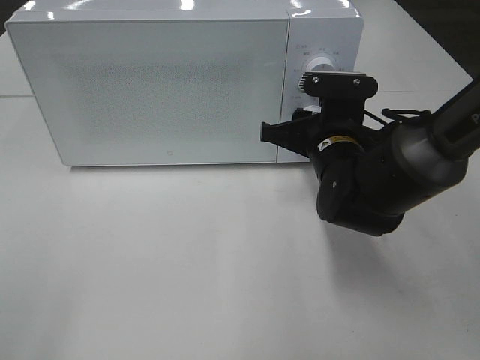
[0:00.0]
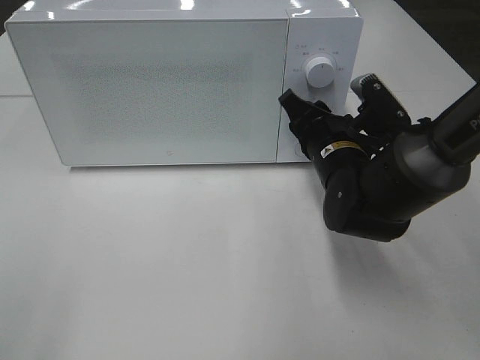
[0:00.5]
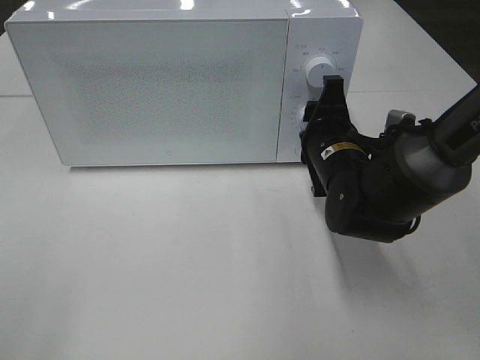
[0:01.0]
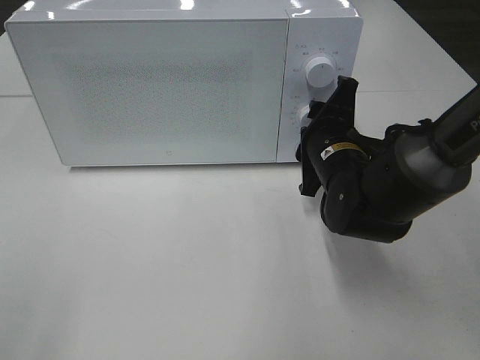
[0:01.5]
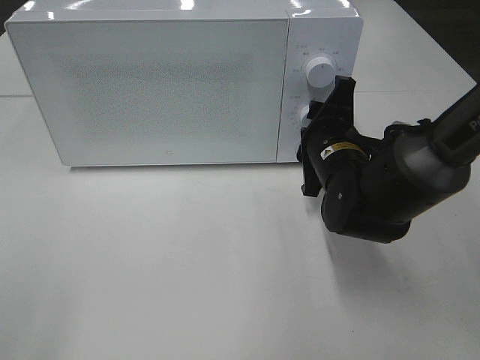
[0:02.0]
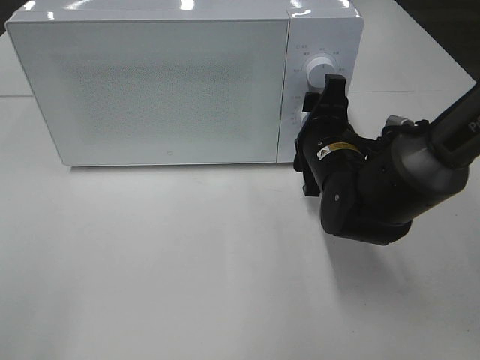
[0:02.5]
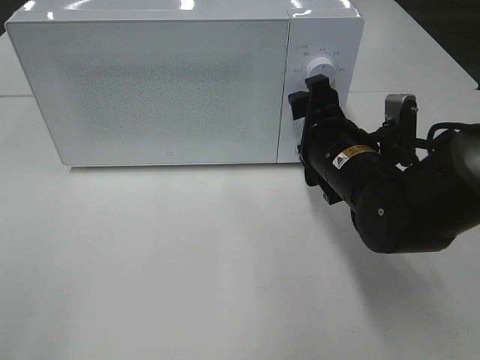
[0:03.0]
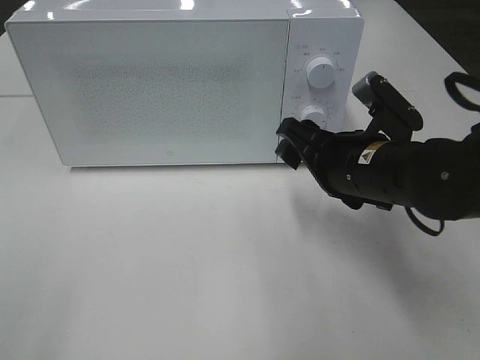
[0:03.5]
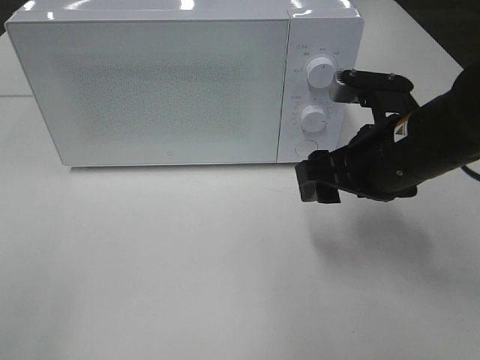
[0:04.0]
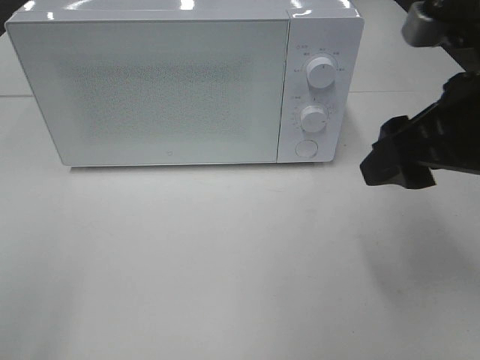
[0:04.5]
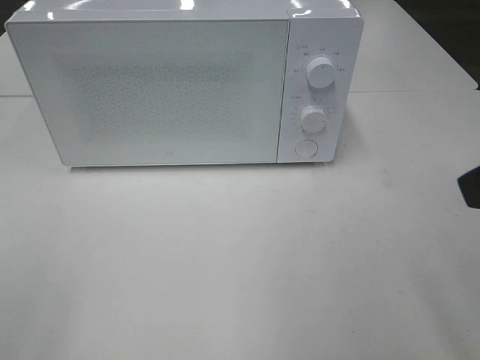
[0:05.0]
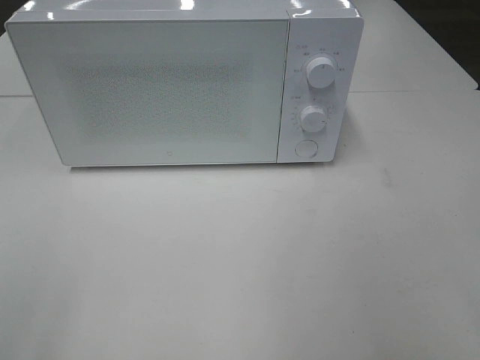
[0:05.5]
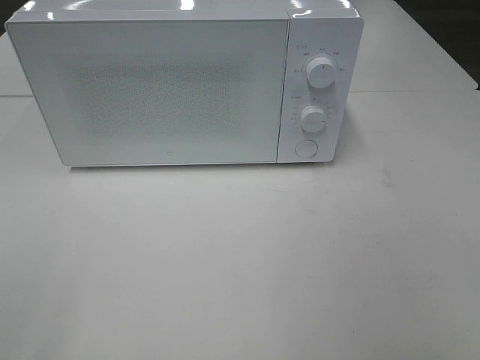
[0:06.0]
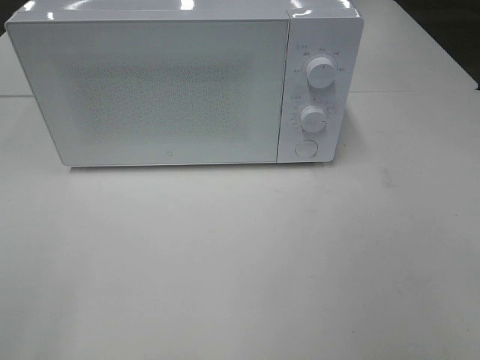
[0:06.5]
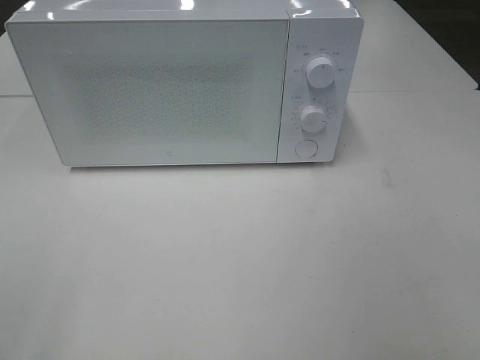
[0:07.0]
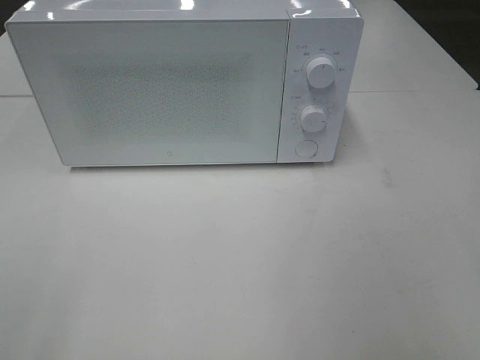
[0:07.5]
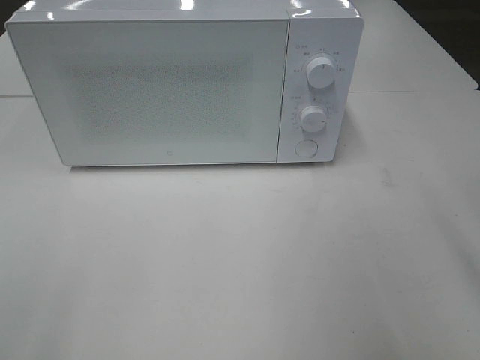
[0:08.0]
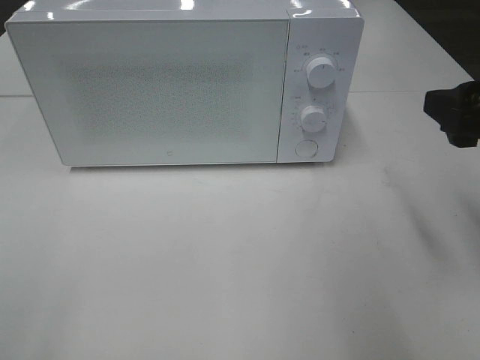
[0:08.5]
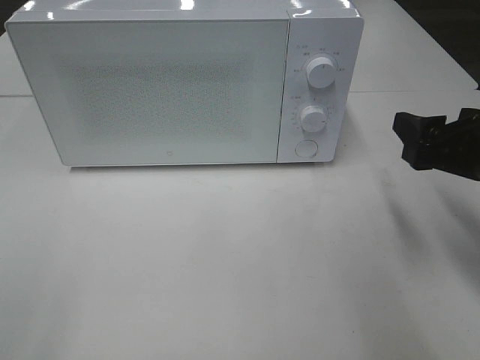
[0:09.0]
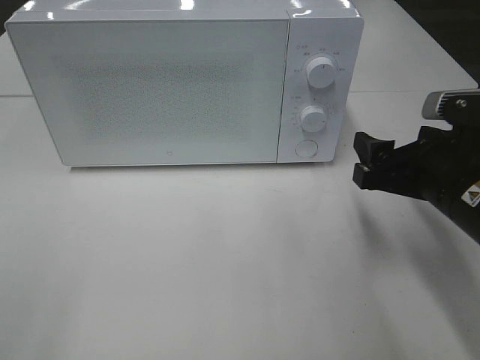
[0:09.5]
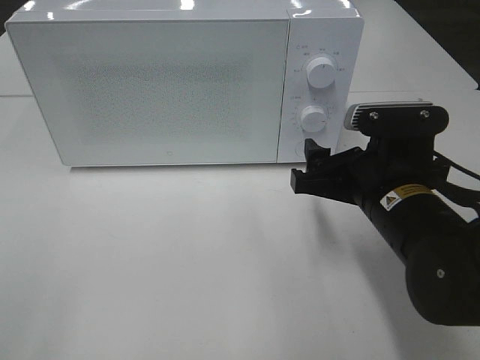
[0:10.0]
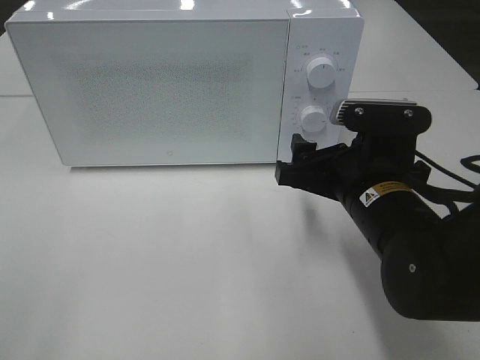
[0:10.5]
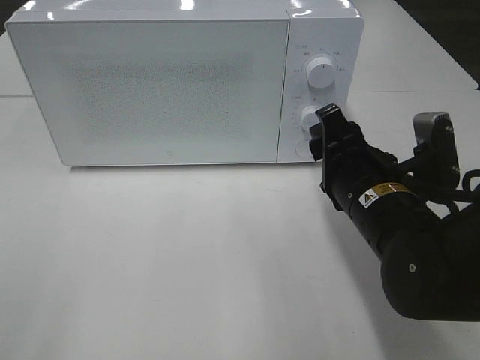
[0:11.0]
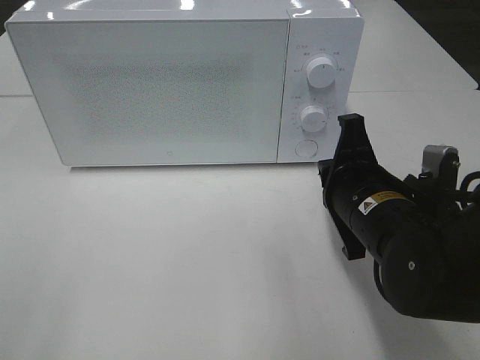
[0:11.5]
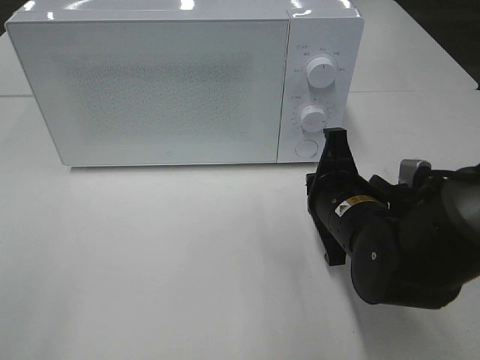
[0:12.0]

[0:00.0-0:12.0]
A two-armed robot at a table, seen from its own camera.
Task of the whole recording: Heat the burger.
Step, 0:00.0 to 0:02.0: Right hand: twist timer button.
0:02.0 to 0:04.0: The right gripper heads upward and backward, covering approximately 10 cm.
0:04.0 to 0:06.0: The right gripper goes about 30 cm backward, to the right and upward.
0:08.0 to 0:10.0: The right gripper travels downward, to the left and forward by about 20 cm.
0:10.0 to 0:12.0: The right gripper ends up roughly 5 cm from where it was, and closes its fingers.

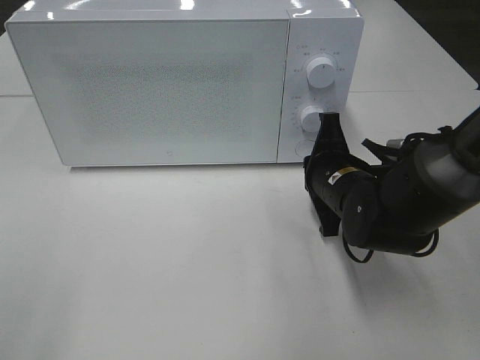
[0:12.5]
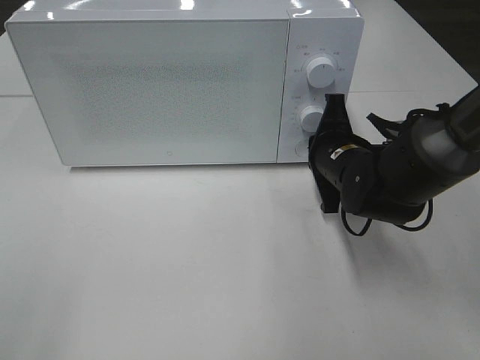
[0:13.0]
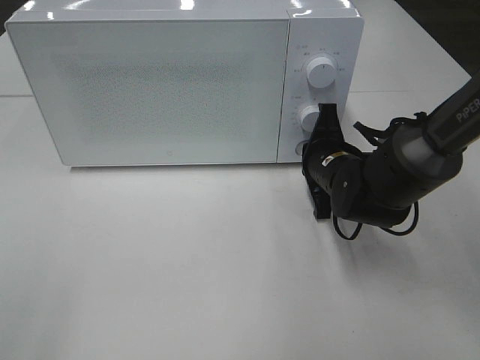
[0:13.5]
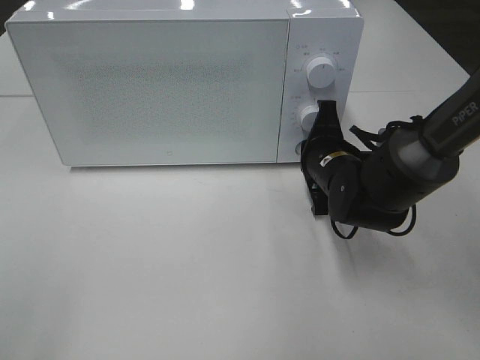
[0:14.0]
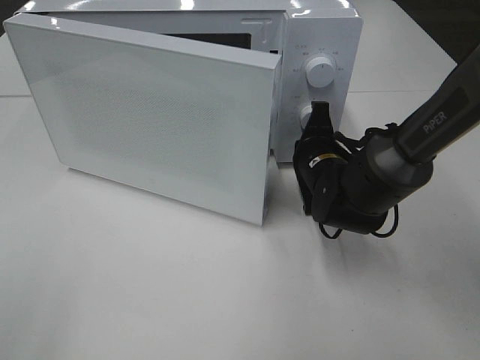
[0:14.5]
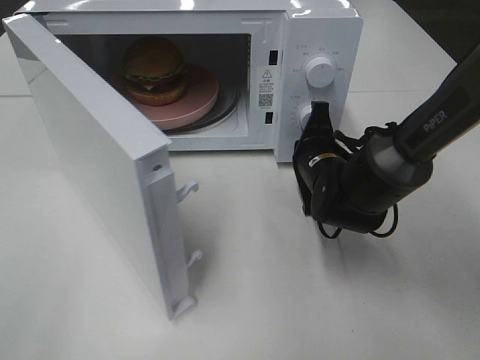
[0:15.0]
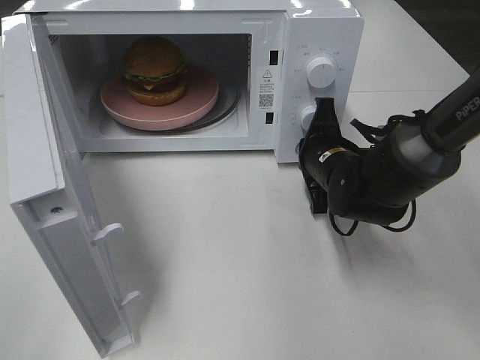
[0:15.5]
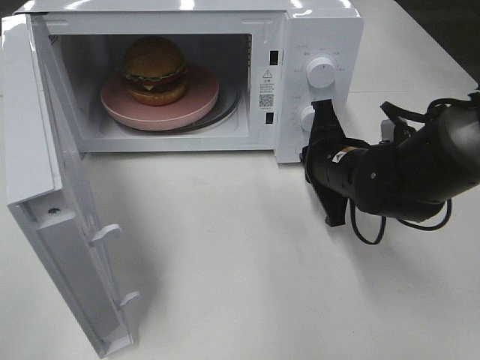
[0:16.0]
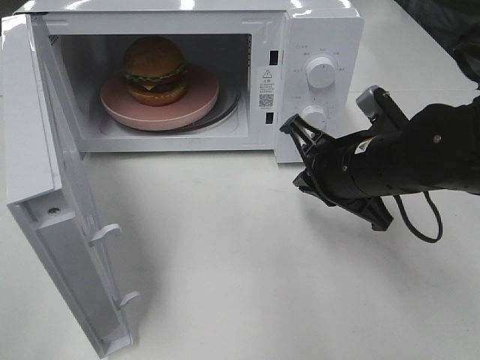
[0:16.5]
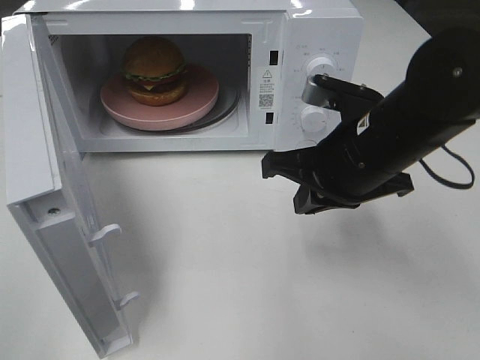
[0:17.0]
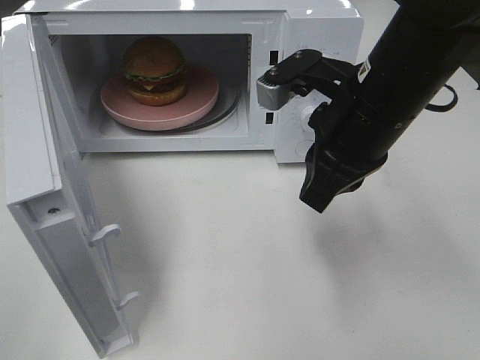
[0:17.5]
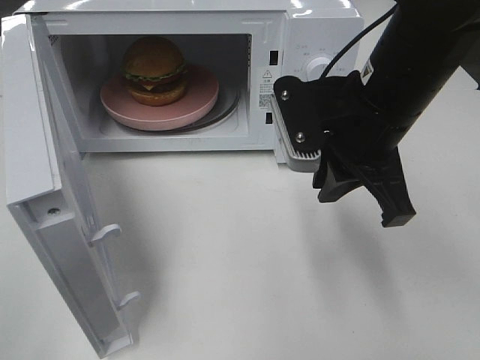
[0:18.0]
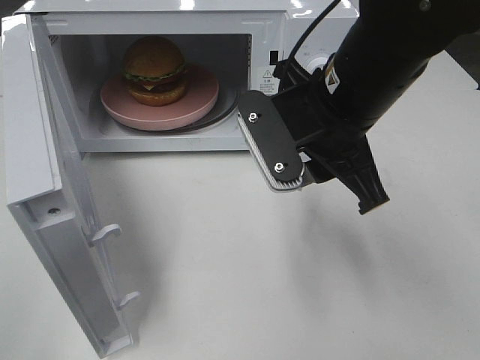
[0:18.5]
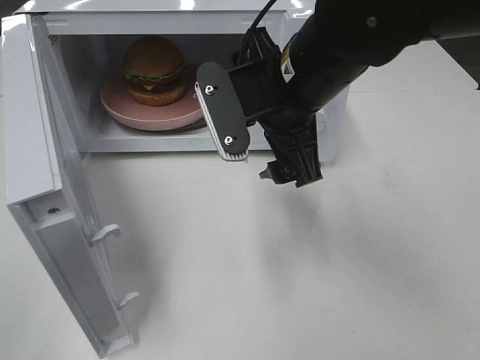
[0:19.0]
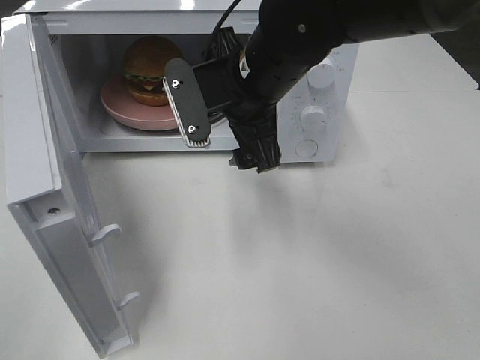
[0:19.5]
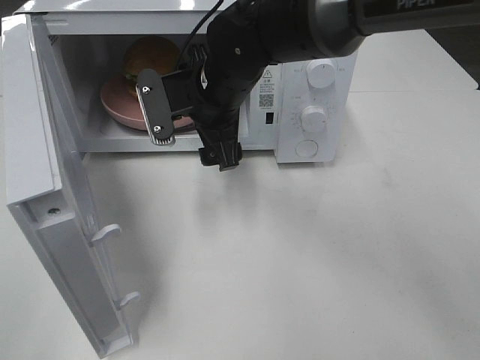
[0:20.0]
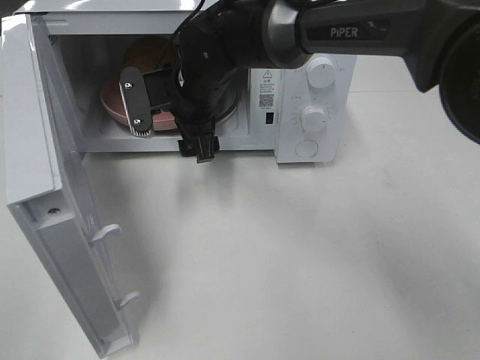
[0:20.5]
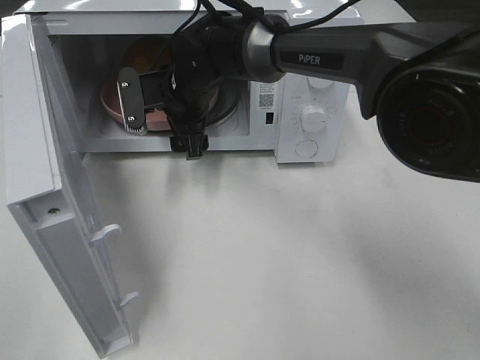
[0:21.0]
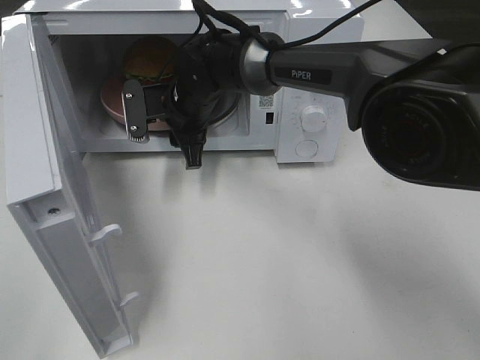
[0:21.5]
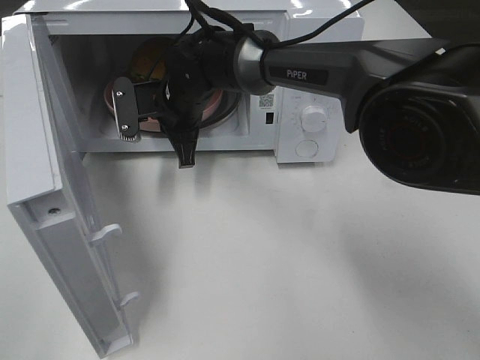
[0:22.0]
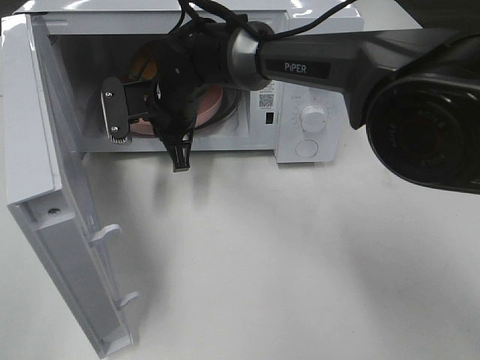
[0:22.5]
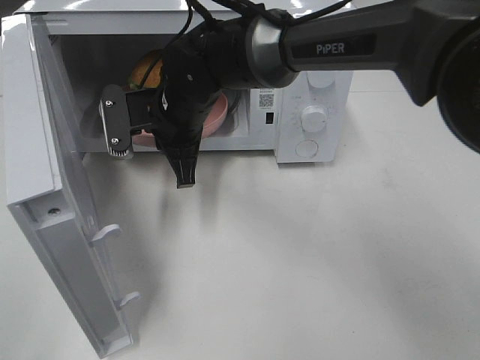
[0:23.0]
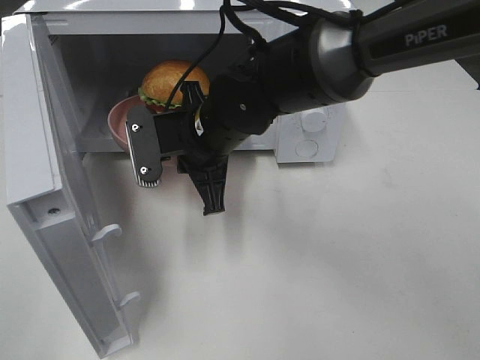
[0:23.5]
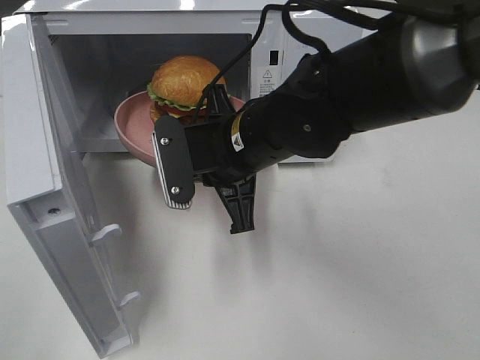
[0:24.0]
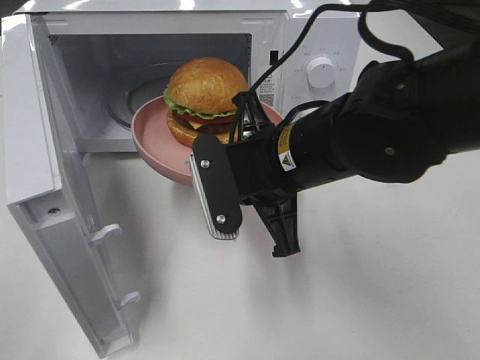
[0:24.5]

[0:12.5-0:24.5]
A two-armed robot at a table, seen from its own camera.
Task of the whole recording: Heat the burger.
Step, 0:12.5 to 0:15.5: Right hand: press the switch.
Step, 0:16.0 to 0:21.5: Right hand: grab the plate with the hamburger.
0:12.5 to 0:14.5: The right gripper ends up some 5 cm from where it was.
0:14.5 to 0:16.5: The right gripper moves backward and upward, approximately 10 cm.
0:16.5 to 0:18.5: The right gripper shifts some 10 cm upward and to the left, and opens its fingers.
0:18.5 to 0:20.5: The right gripper moves forward, to the left and downward, some 20 cm, and opens up.
0:20.5 to 0:22.5: The right gripper closes its fingers.
0:22.5 to 0:24.5: The right gripper travels backward and to the right by about 20 cm.

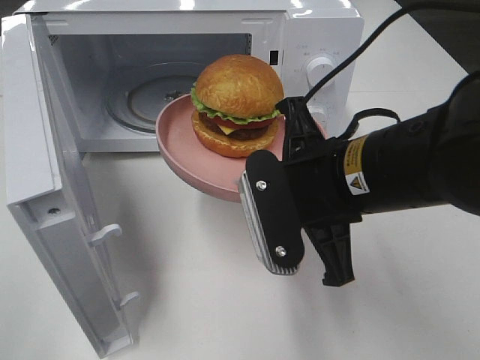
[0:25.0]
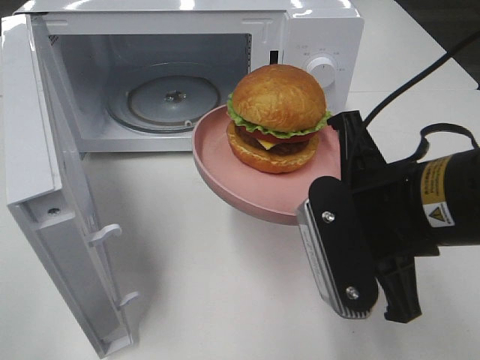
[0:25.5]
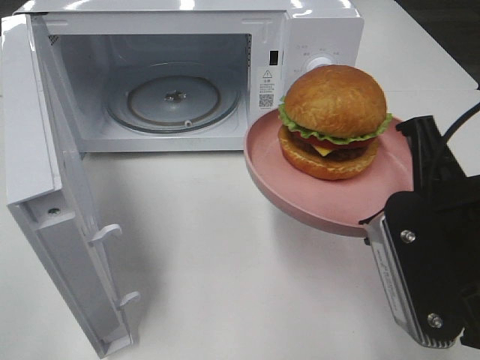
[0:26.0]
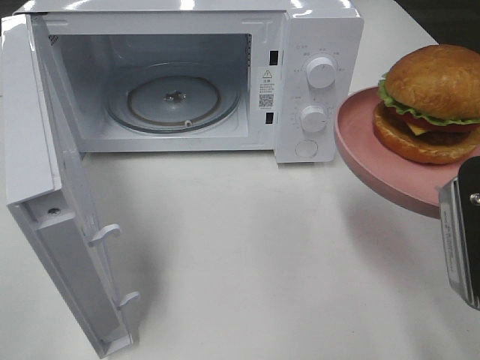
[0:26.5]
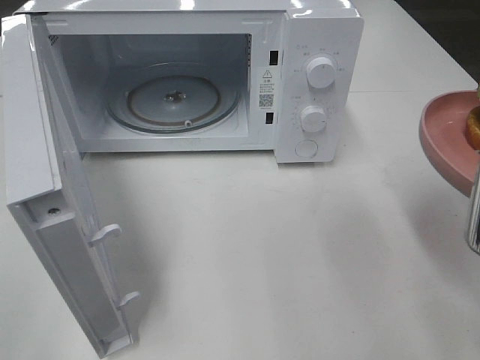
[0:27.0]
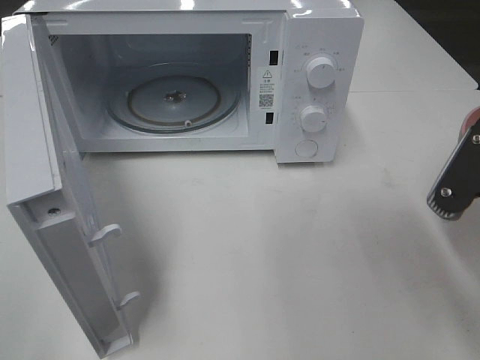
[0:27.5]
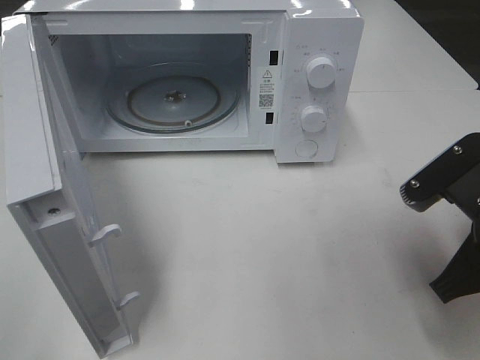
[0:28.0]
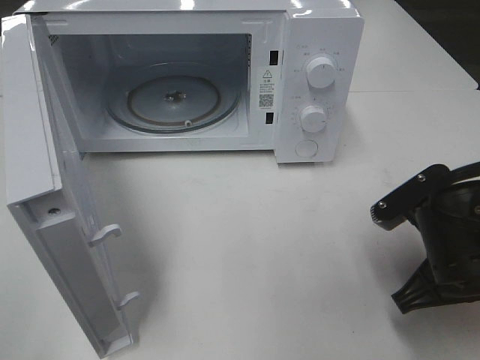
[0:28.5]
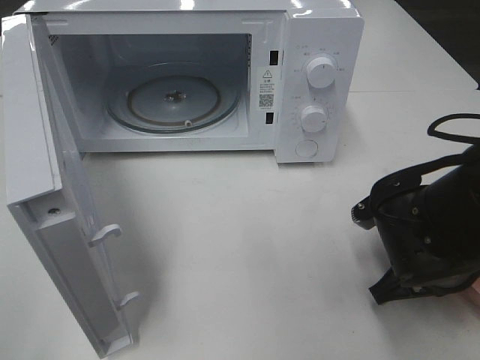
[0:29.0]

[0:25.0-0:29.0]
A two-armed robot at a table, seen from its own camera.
Task of the whole recording: Heat the burger.
0:25.0 to 0:27.0: The right gripper travels to the right and backward by roughly 15 cm.
0:27.0 to 0:29.0: The right gripper goes about 15 cm downward and forward.
